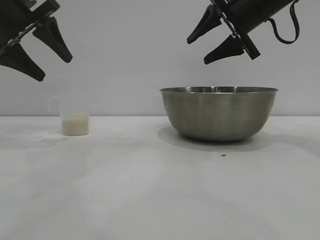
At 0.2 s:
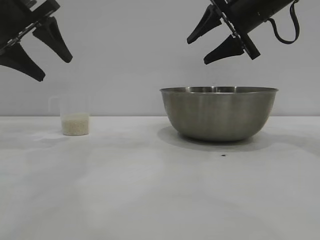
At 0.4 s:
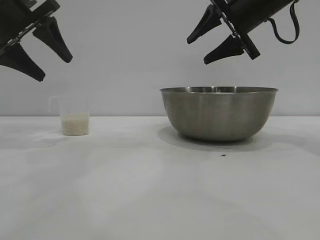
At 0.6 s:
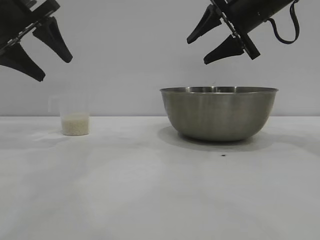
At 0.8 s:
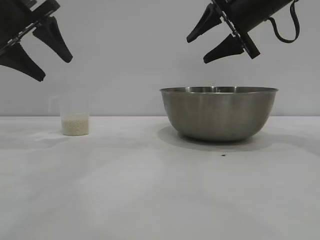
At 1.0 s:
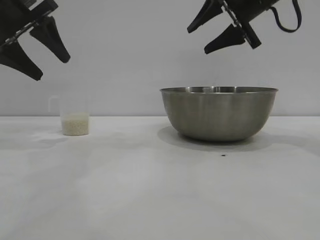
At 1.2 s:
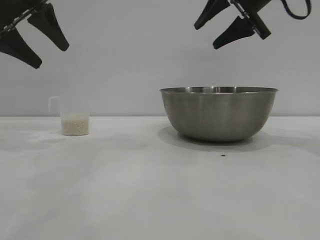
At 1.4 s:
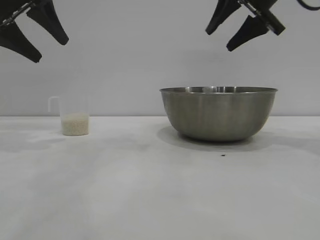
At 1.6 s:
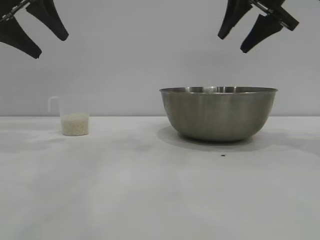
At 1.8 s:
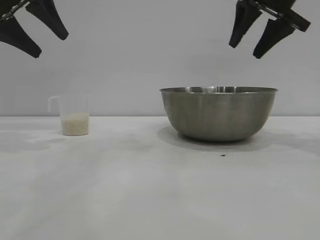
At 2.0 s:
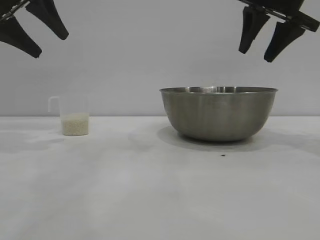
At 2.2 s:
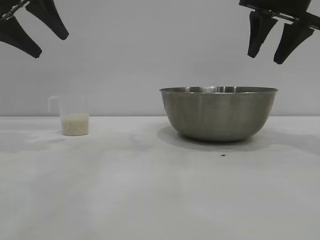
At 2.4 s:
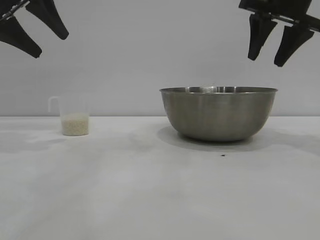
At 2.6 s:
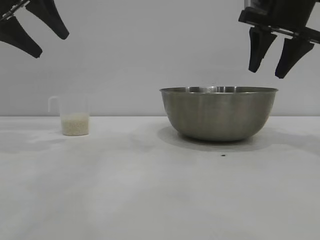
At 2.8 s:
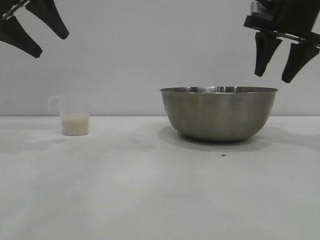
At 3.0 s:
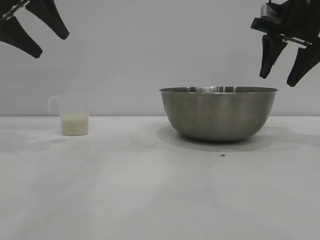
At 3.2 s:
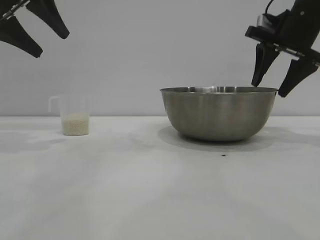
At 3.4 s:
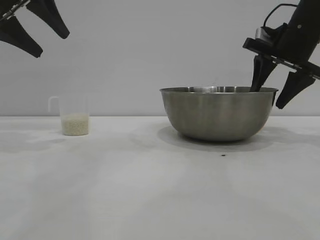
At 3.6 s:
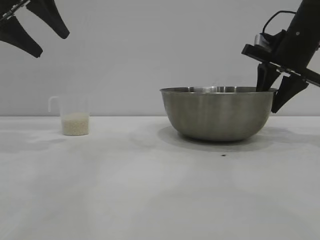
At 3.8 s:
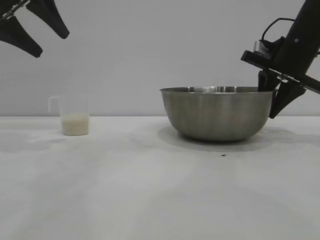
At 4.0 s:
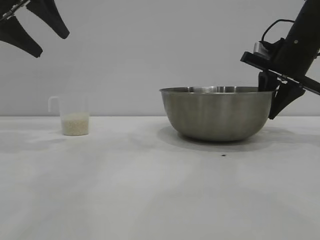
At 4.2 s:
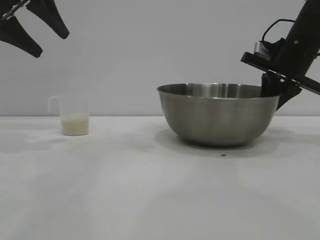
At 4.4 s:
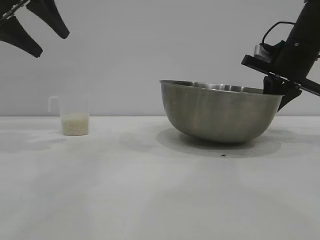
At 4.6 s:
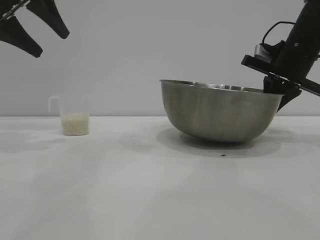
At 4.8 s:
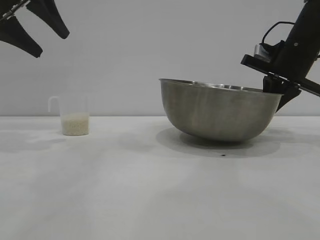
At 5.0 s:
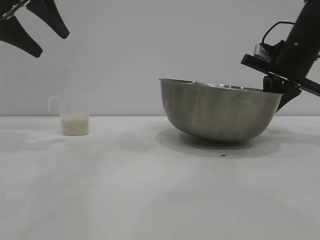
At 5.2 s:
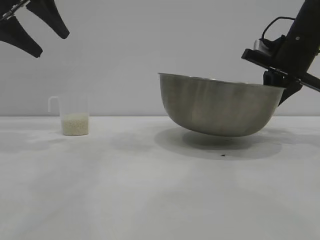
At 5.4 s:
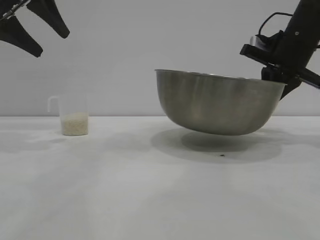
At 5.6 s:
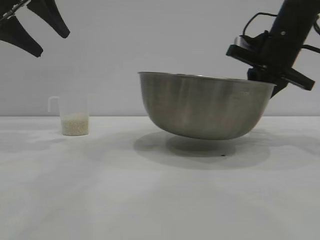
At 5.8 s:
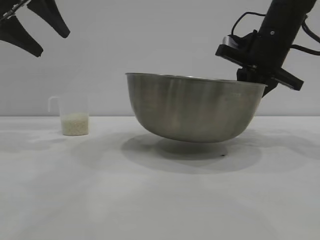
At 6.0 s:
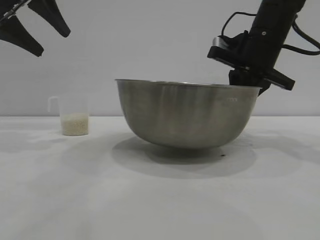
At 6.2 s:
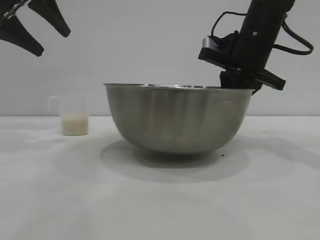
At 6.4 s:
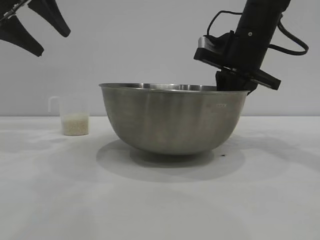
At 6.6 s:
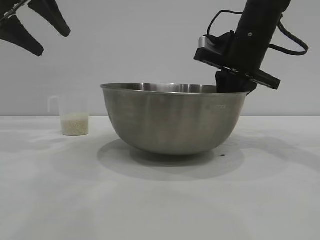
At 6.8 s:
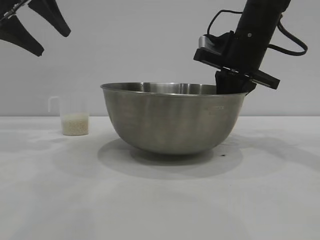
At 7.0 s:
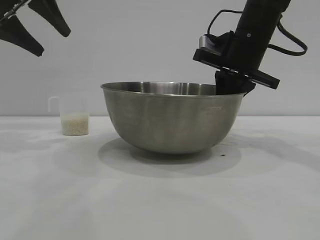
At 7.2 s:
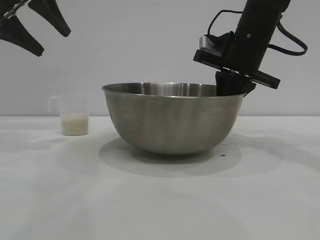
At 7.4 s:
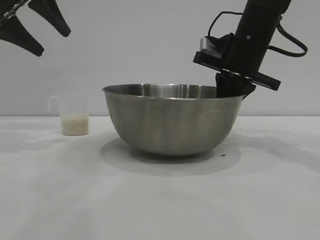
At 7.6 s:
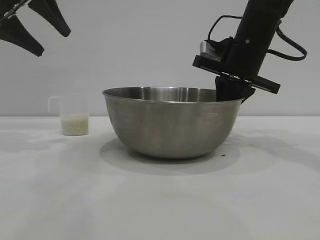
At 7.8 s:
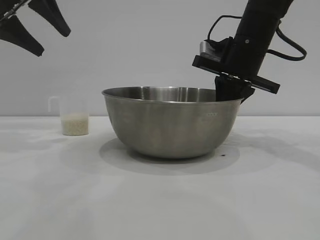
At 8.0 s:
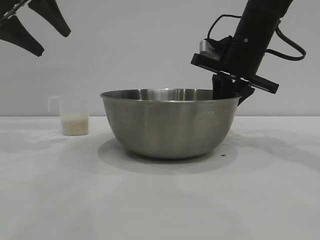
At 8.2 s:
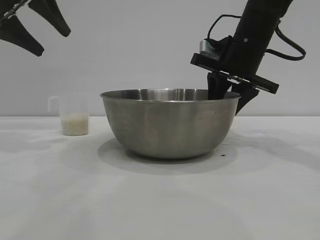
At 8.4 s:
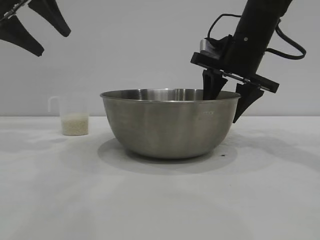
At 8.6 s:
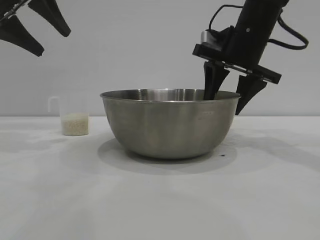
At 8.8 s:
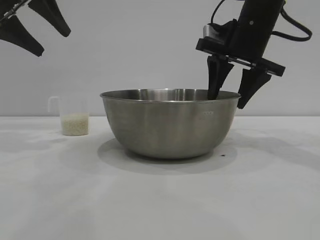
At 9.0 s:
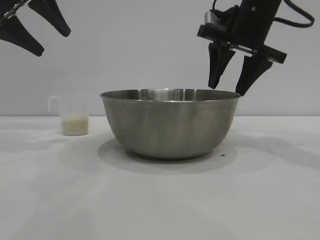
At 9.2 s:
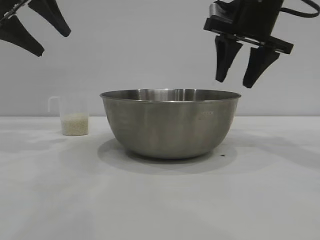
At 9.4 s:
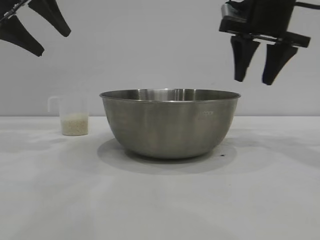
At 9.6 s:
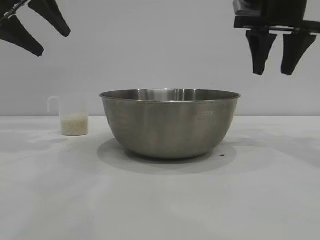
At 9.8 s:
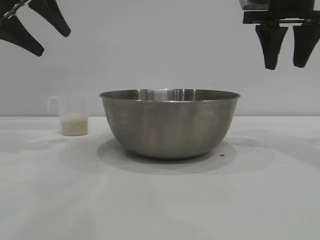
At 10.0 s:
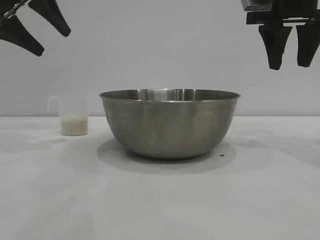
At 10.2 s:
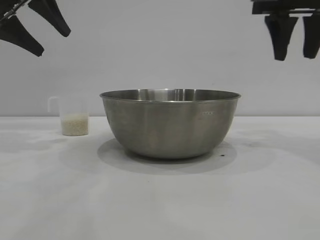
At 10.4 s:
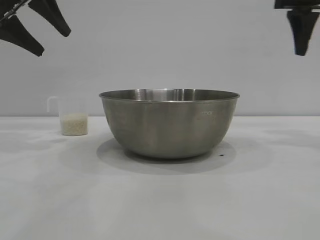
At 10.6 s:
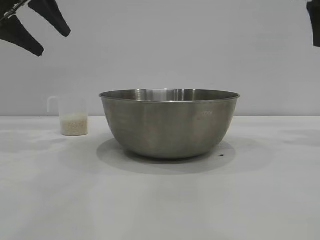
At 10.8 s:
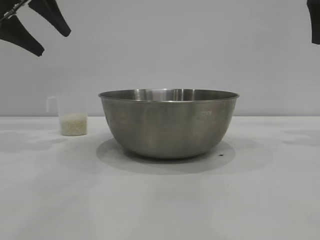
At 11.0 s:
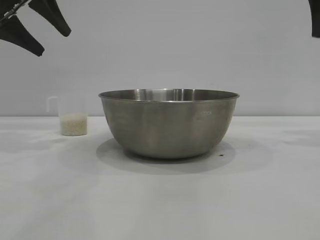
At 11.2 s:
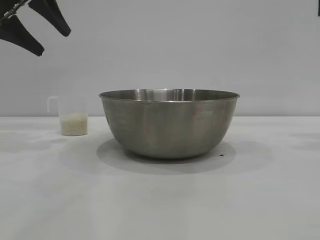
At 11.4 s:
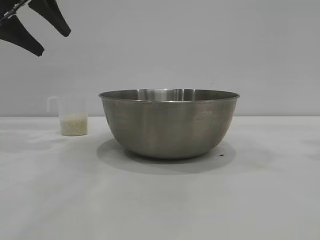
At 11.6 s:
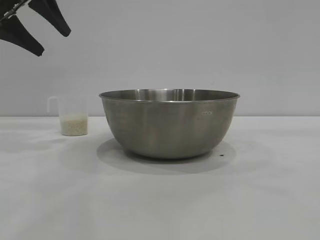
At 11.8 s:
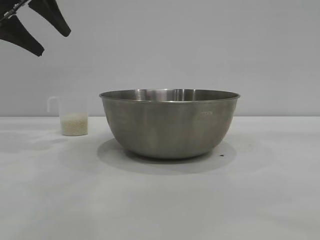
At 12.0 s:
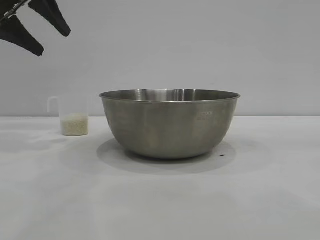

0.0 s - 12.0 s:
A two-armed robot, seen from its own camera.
Task of the whole recording: the right gripper grasp the rice container and place it in the center of the table, the left gripper grasp the rice scoop and pour the rice into the rice container.
Step, 0.0 s - 5.4 s: Pick up the bowl with the right gripper.
Step, 5.6 s - 9.0 s: Place the bowl in the center of view with the right gripper.

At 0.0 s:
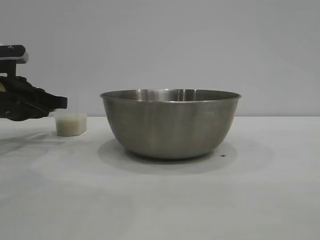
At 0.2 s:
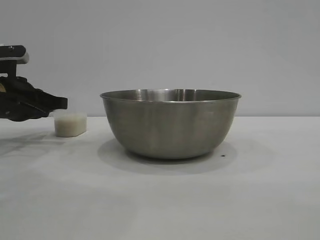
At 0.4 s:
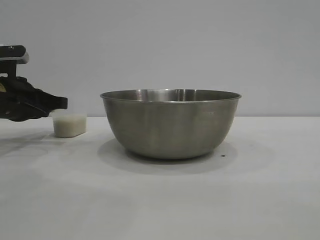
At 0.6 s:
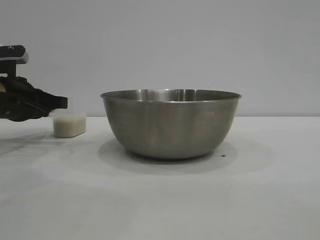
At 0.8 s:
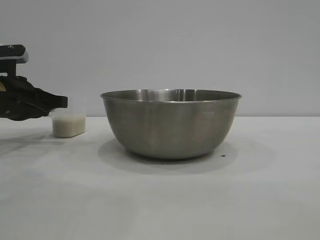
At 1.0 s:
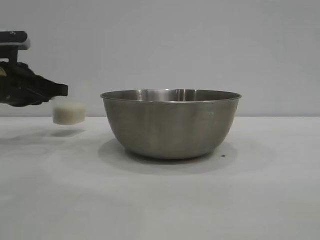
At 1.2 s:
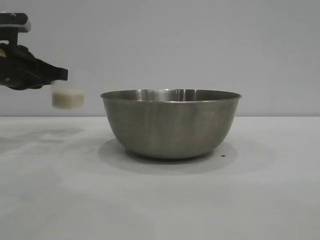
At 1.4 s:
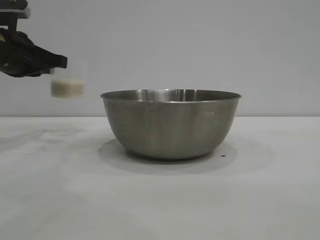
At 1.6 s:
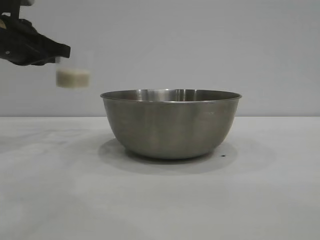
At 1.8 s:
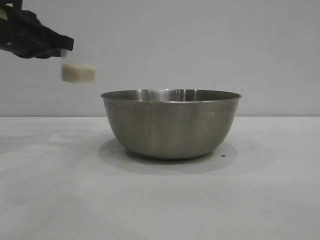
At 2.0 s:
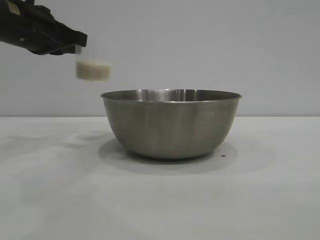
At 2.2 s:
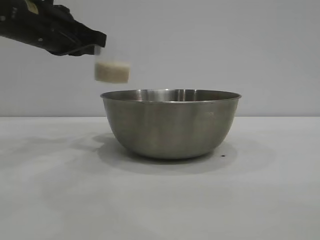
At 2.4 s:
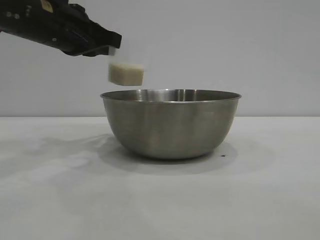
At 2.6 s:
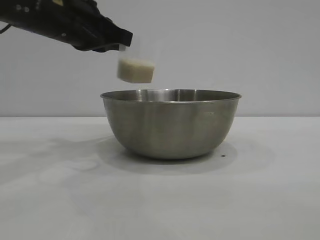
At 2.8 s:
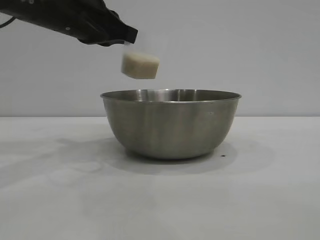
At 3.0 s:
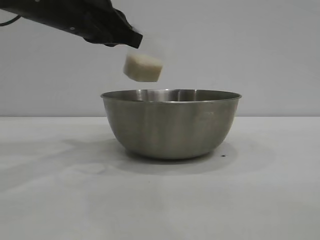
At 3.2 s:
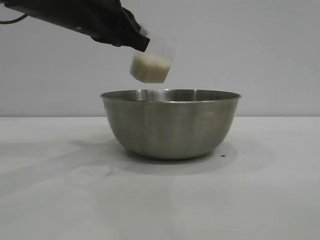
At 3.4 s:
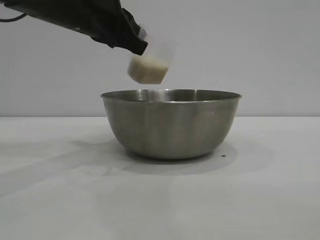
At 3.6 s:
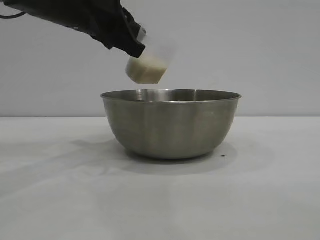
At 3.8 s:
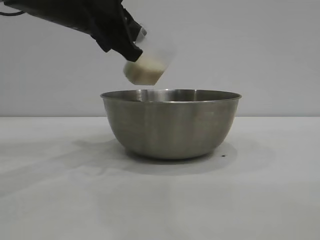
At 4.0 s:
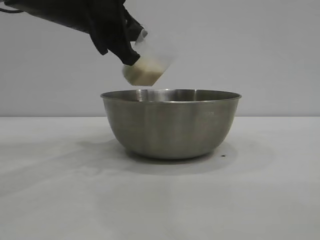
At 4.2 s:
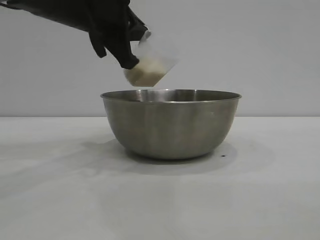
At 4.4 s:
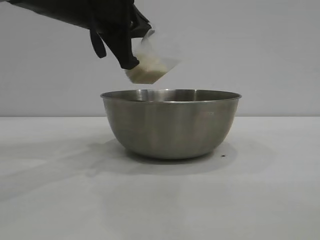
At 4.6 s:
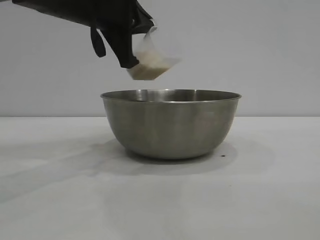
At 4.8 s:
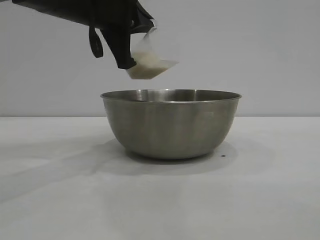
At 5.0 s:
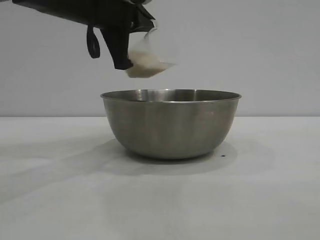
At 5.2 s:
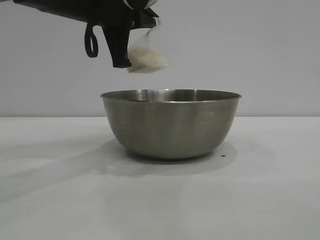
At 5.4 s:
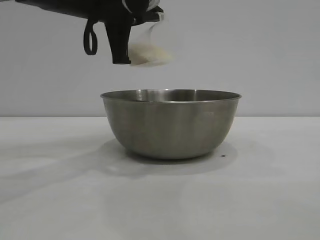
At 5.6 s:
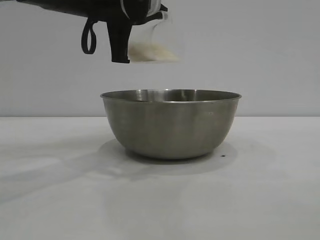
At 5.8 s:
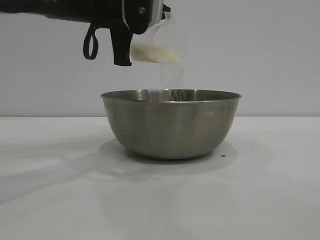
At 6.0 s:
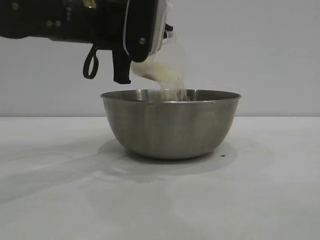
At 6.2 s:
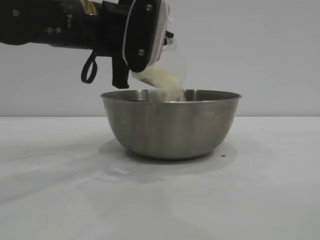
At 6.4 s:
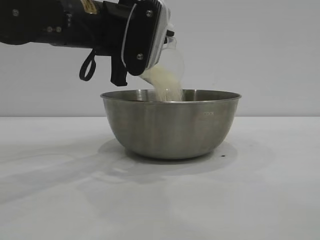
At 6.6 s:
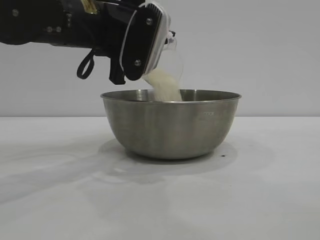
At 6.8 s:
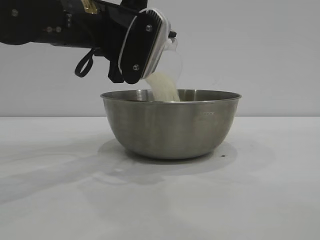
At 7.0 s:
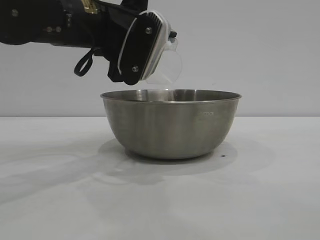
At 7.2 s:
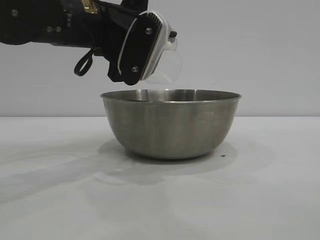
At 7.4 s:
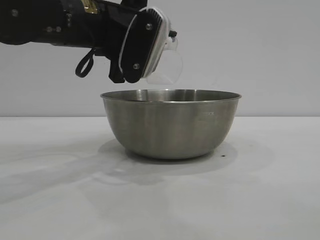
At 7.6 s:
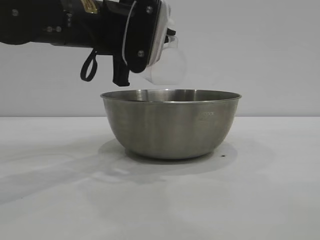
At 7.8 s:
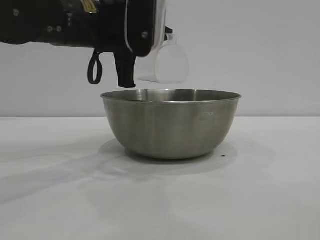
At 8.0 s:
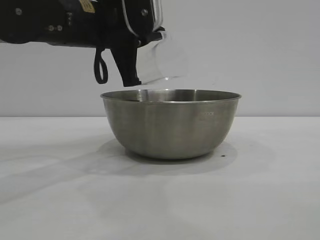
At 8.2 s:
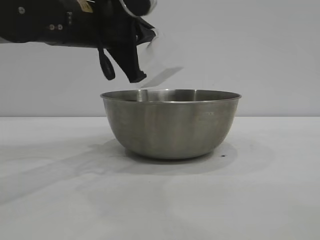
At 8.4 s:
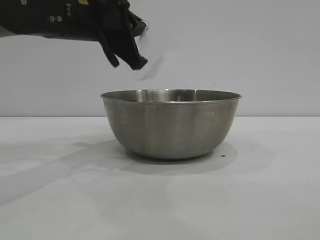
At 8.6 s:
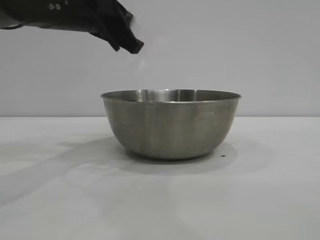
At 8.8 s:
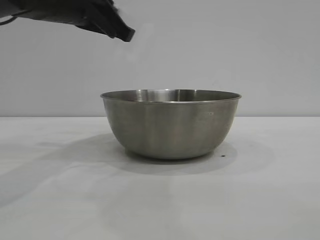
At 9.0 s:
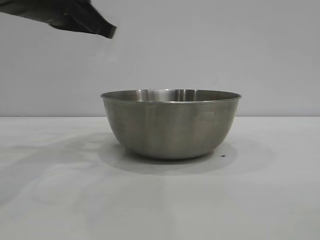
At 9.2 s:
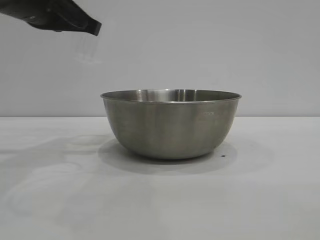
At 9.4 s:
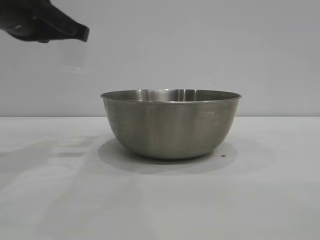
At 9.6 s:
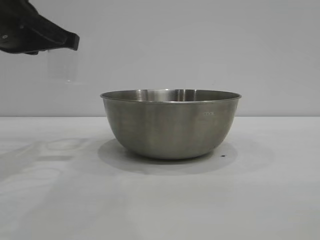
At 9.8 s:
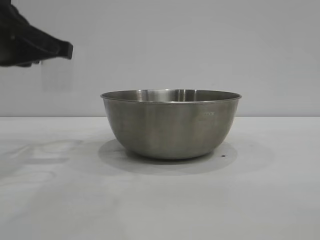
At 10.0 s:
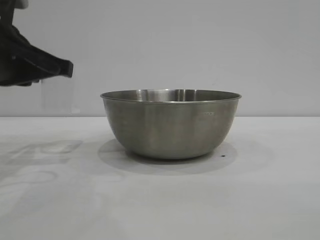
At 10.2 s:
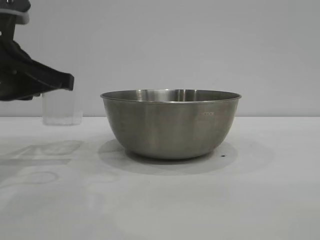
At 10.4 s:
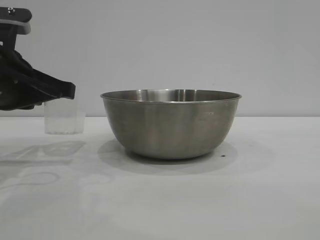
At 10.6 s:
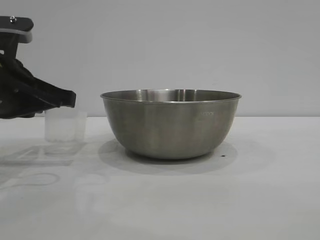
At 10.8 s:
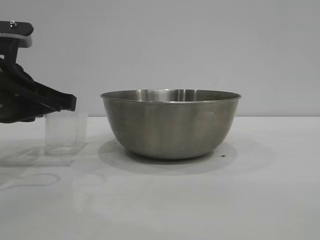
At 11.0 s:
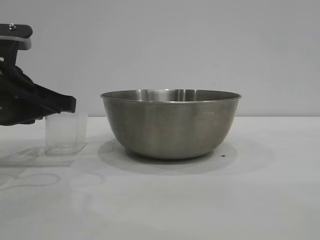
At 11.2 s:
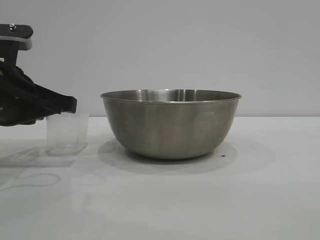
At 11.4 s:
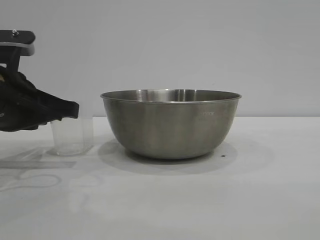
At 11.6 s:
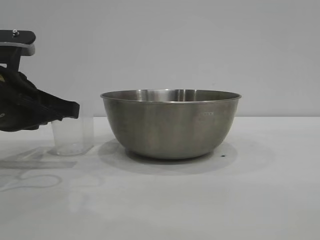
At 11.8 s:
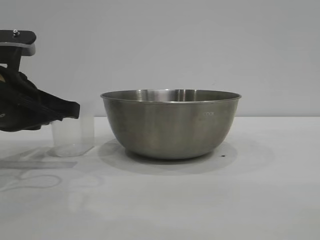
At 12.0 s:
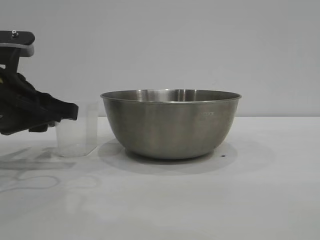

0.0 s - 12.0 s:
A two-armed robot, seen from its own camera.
Task of the whole recording: the right gripper grasp the rice container and place it in the center of the table, the left gripper grasp the rice scoop and pour the rice into the rice container.
Step, 1.6 s - 8.4 s: Pour the rice from the cup into the bowl with the left gripper.
